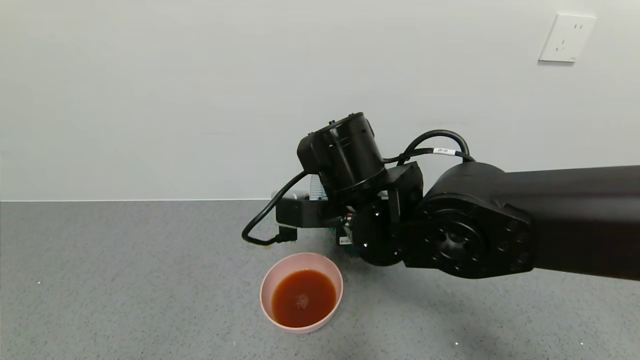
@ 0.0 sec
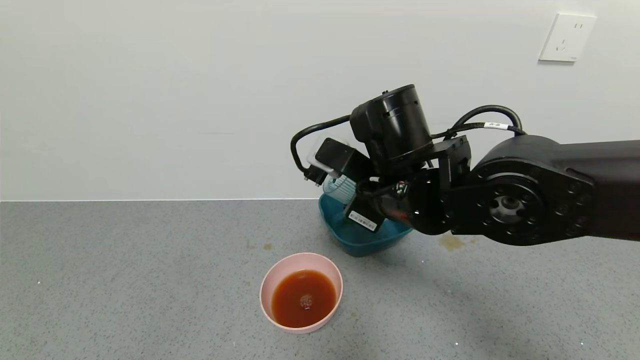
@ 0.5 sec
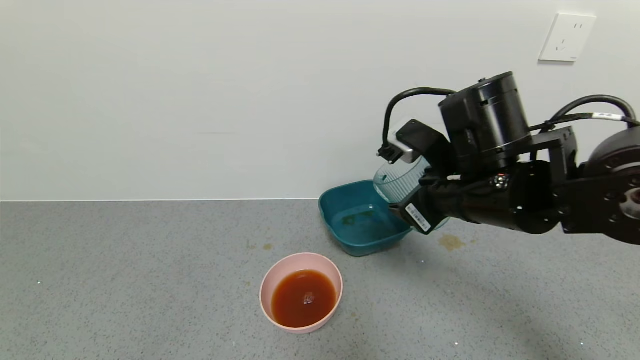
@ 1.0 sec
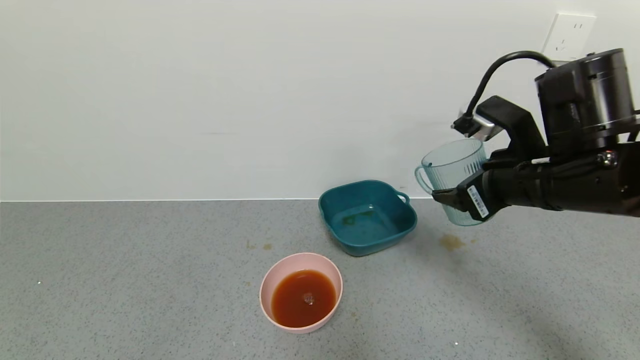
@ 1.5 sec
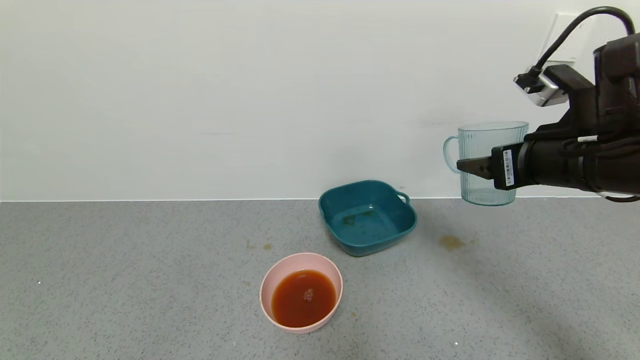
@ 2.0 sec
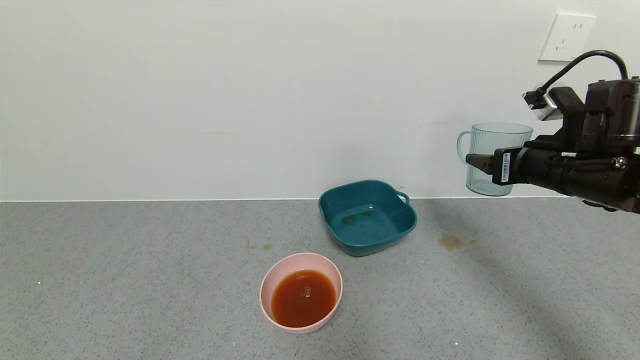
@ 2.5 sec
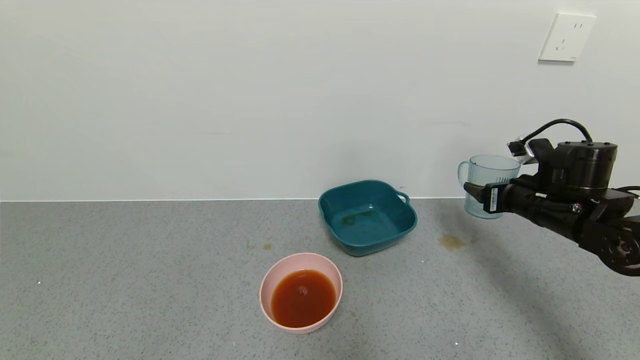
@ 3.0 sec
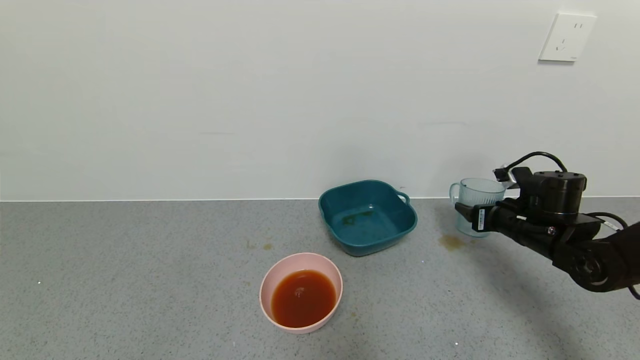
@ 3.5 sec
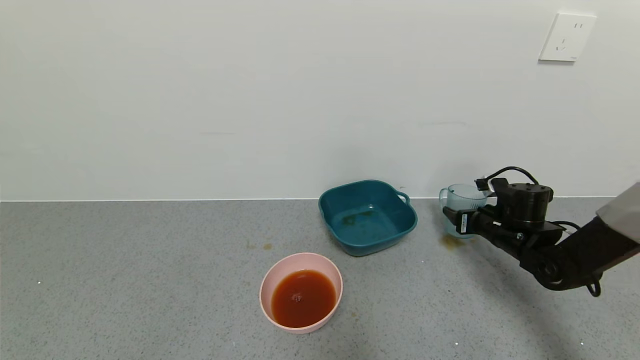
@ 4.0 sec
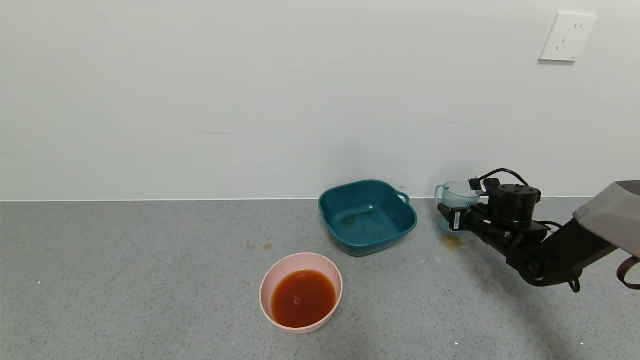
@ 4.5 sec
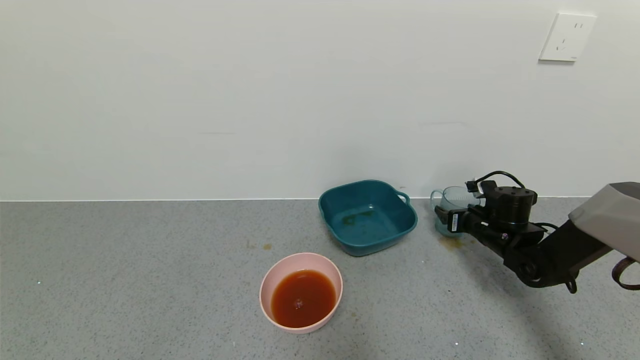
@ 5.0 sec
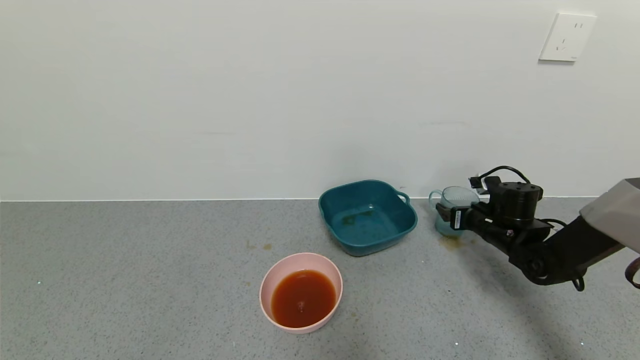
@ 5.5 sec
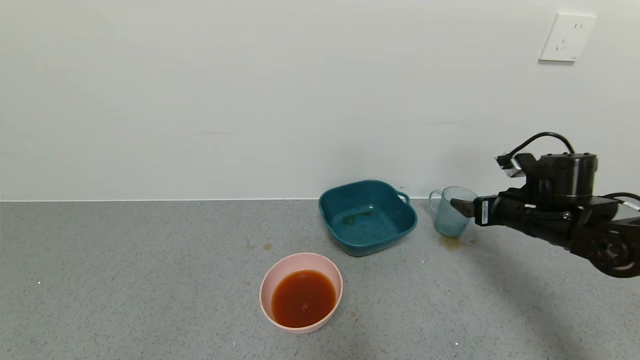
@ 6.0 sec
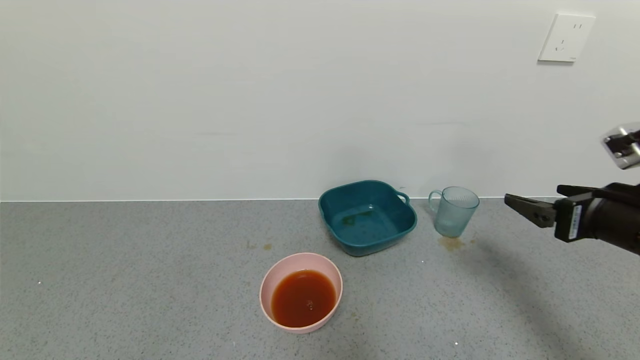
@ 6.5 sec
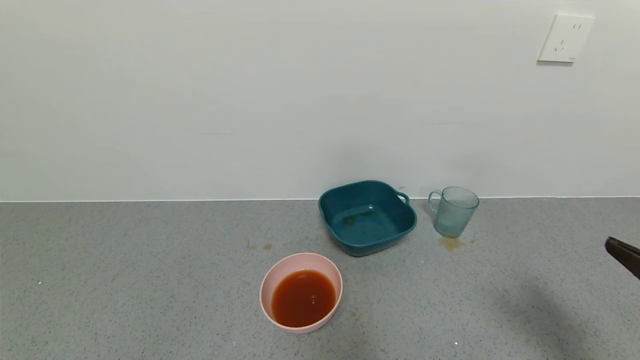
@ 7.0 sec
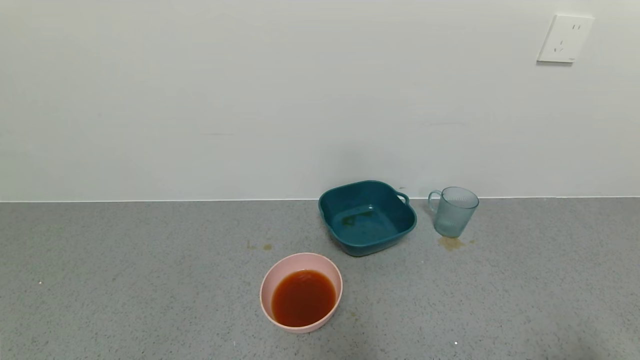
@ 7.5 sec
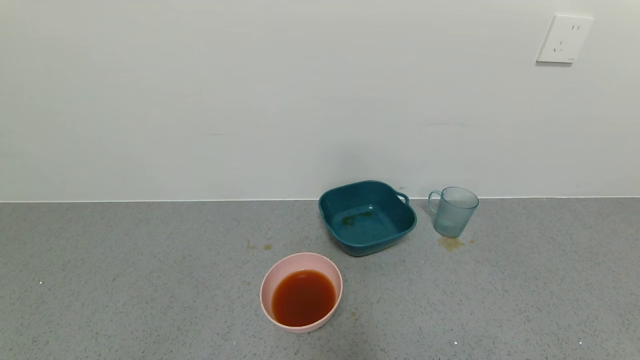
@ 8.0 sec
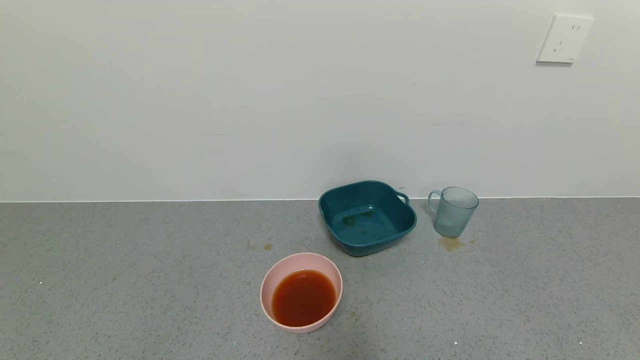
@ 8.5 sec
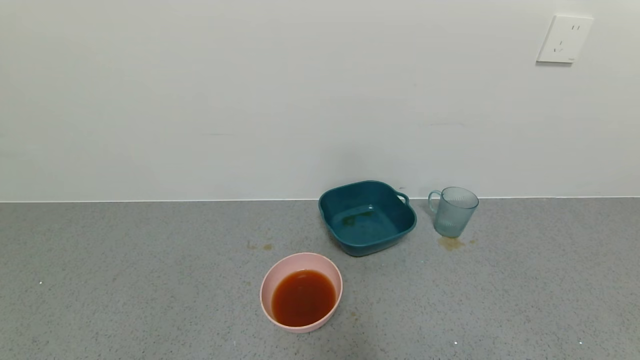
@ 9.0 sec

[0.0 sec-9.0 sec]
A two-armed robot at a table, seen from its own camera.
Task of the whole recording: use a gripper to pick up the cup and pour the liquid into a bowl or tray.
Step, 0.5 sec to 5.0 sec: Place blue cup with tea on the table with right gripper.
0.0 sec to 2.0 sec: The right gripper heads to the right, covering roughly 20 cm.
2.0 sec to 4.5 sec: The right gripper shifts roughly 25 cm downward and forward.
4.5 sec to 7.0 sec: The right gripper goes approximately 35 cm backward and upward, and opens.
7.0 sec to 9.0 sec: The right gripper heads downward and backward, covering about 20 cm.
